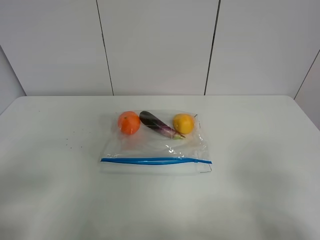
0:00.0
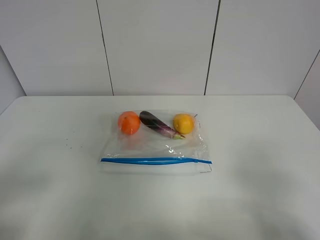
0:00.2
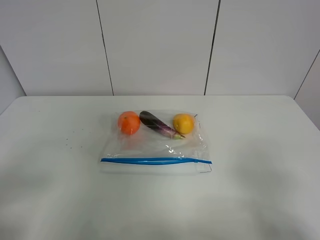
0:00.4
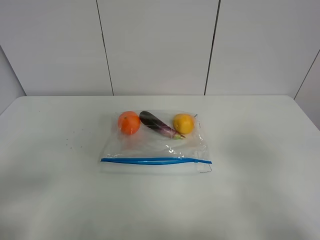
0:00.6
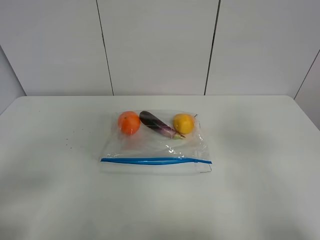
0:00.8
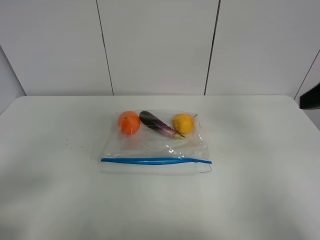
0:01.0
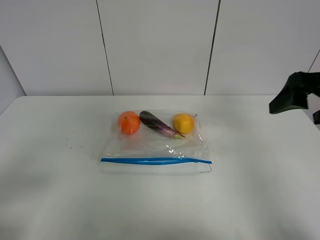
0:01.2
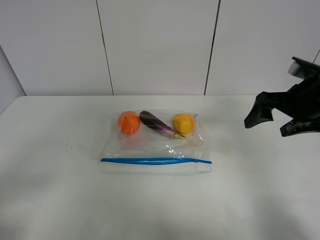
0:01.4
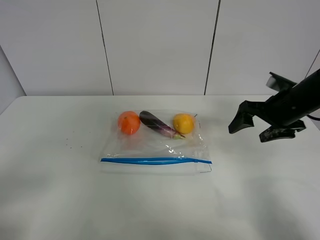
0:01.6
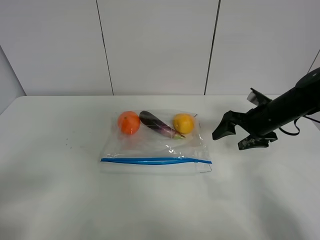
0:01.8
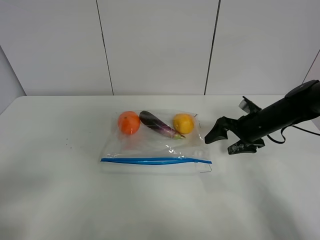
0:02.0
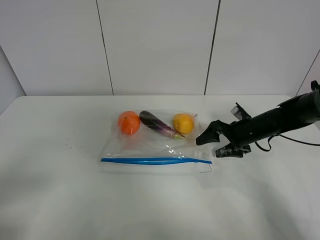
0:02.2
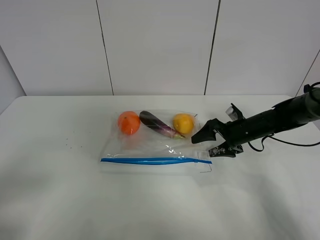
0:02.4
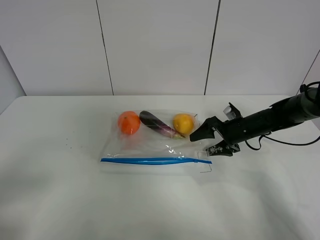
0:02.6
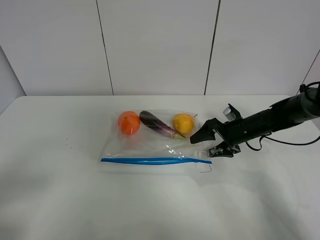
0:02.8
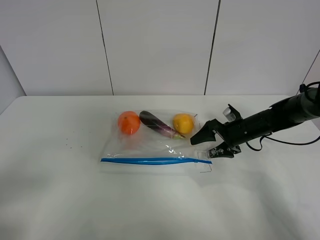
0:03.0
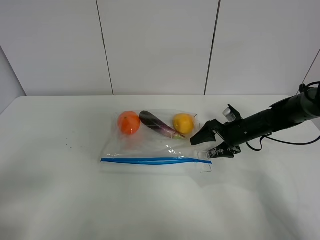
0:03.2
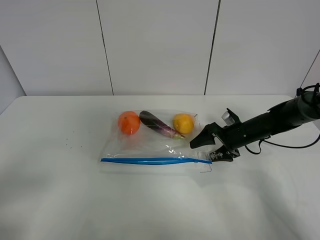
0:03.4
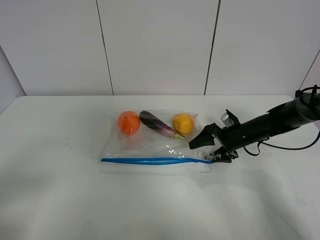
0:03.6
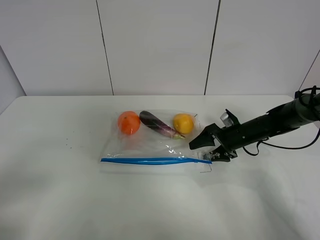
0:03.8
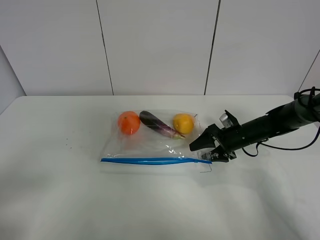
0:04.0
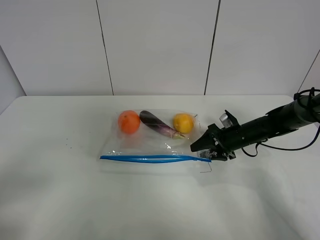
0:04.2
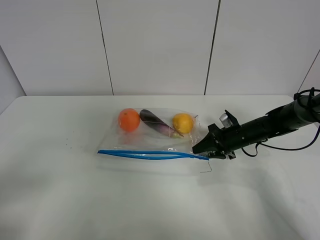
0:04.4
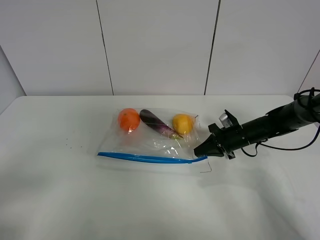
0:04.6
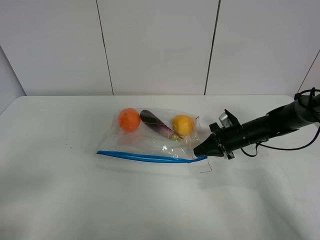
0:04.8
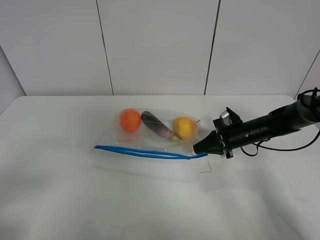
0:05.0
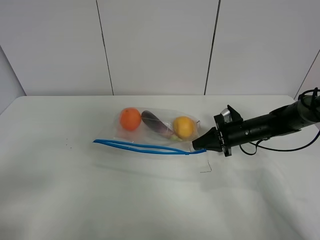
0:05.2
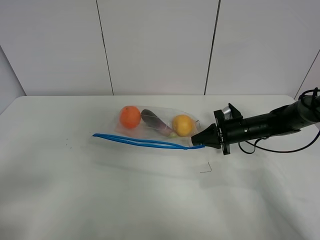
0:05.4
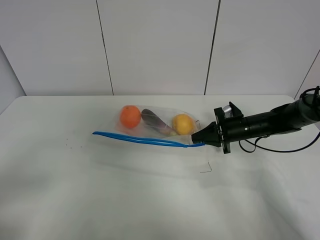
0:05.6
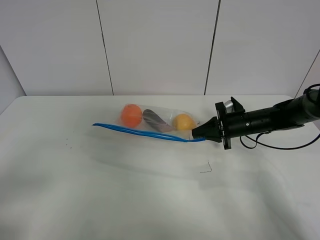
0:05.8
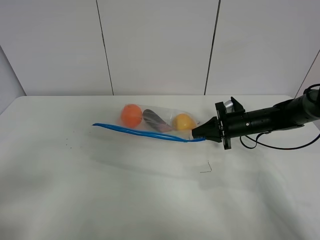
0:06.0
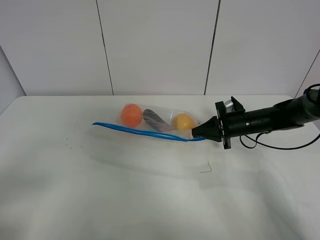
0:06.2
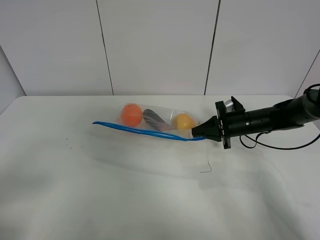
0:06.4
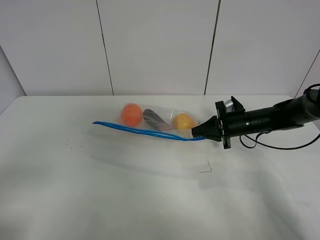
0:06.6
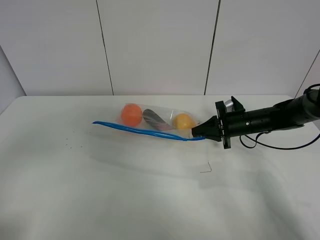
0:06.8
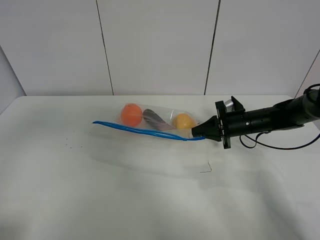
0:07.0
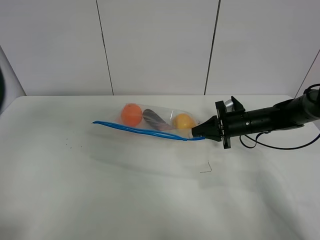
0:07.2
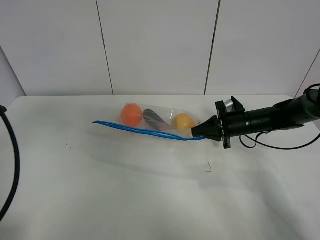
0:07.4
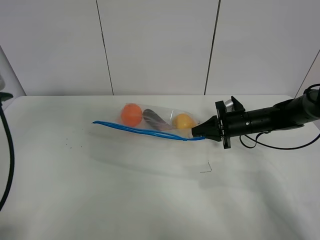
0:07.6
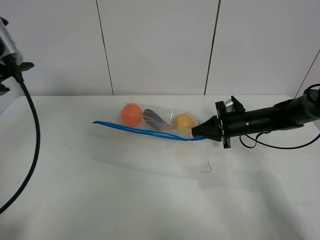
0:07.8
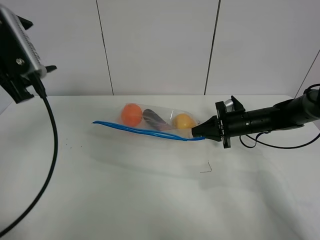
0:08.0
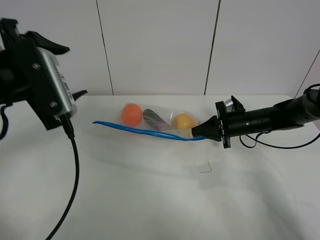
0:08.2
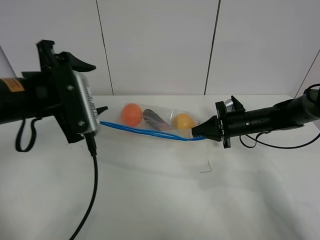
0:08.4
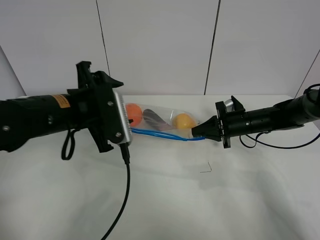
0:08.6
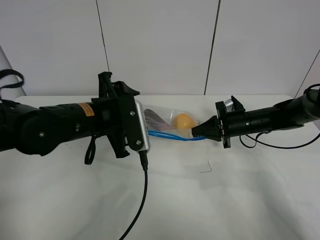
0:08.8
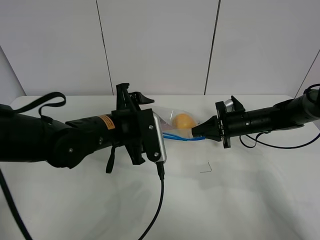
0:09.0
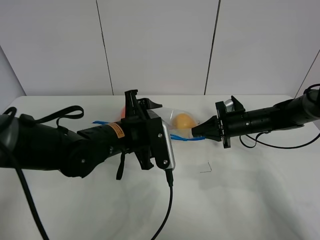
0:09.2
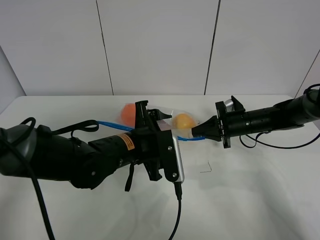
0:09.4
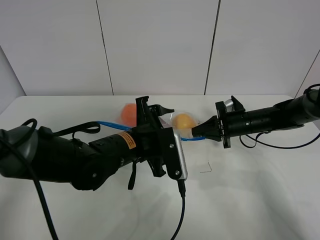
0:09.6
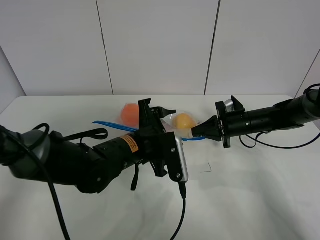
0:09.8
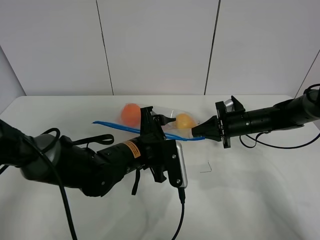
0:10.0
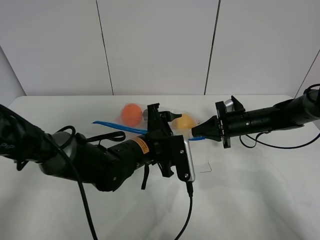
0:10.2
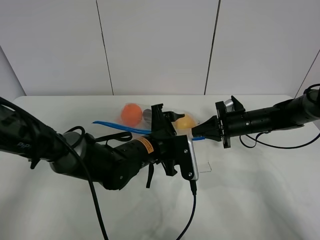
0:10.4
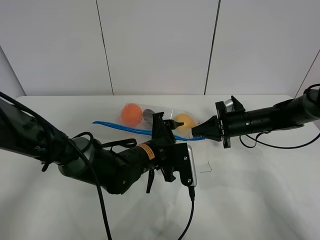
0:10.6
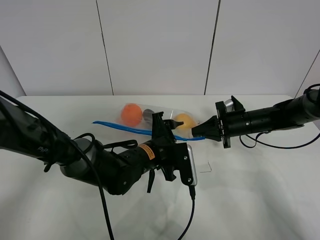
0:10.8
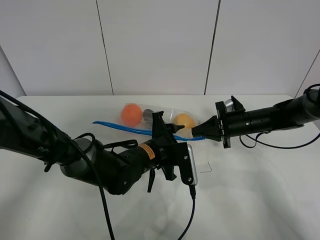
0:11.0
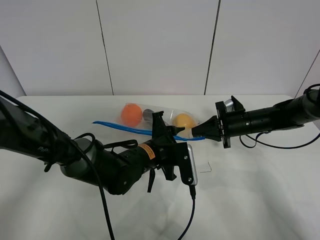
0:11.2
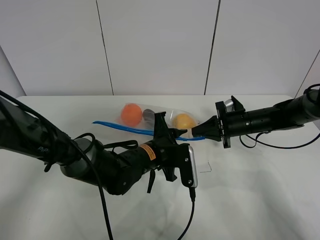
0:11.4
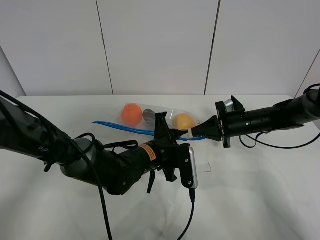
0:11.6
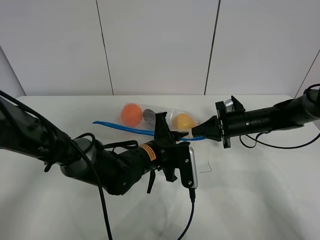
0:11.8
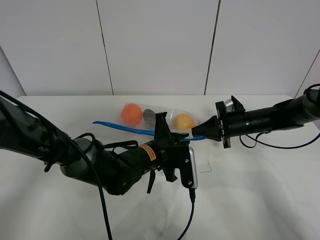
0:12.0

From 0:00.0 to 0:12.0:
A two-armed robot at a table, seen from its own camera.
Step, from 0:00.0 to 0:04.4: Grasp the fruit bag with right gripper.
Step, from 0:04.6 to 0:06.0: Lift the fruit bag with your right gripper.
From 0:00.0 to 0:01.6: The right gripper goes about 30 cm forward.
From 0:01.6 to 0:03.0: The right gripper travels downward and forward by some 15 cm.
From 0:03.0 to 0:04.4: The right gripper closes its fingers.
From 0:04.4 to 0:06.0: The grippers stay close to where they were, moving slightly.
From 0:06.0 to 0:07.6: The left gripper moves forward and upward, about 25 cm.
From 0:07.6 to 0:09.0: The left gripper travels to the right and downward by roughly 25 cm.
From 0:09.0 to 0:10.4: The left gripper moves to the right and downward, about 10 cm.
From 0:10.4 to 0:12.0: The left gripper closes.

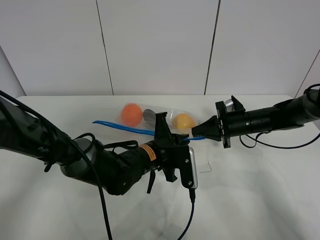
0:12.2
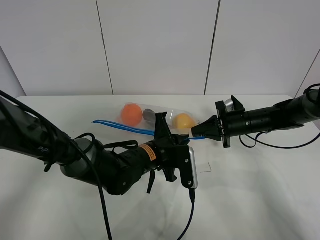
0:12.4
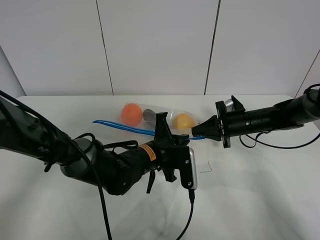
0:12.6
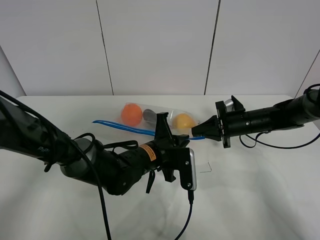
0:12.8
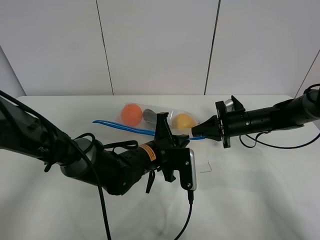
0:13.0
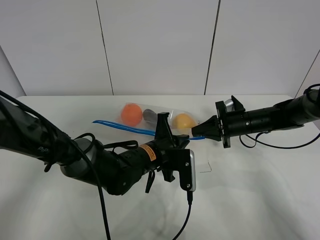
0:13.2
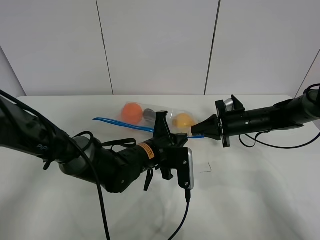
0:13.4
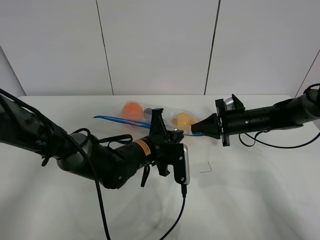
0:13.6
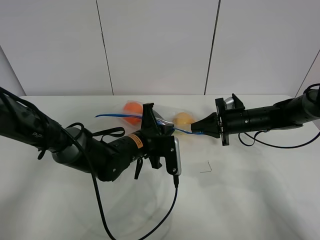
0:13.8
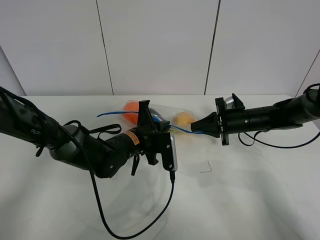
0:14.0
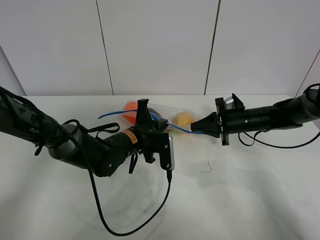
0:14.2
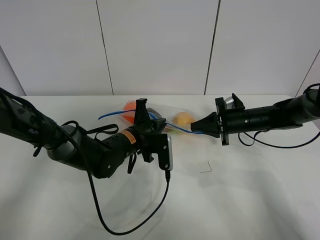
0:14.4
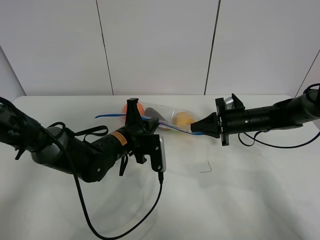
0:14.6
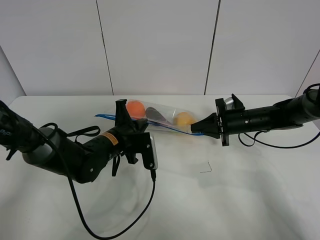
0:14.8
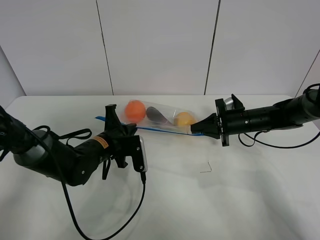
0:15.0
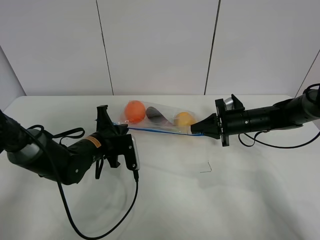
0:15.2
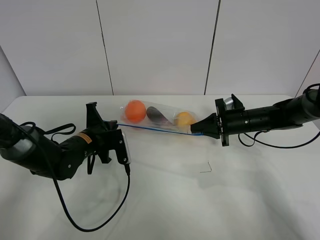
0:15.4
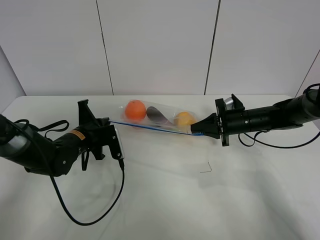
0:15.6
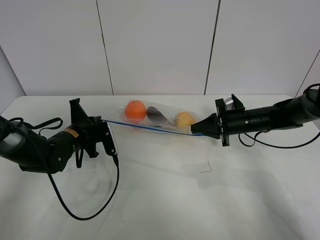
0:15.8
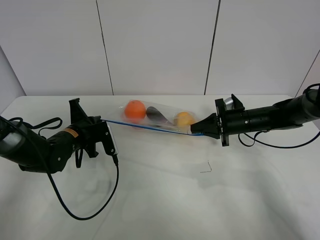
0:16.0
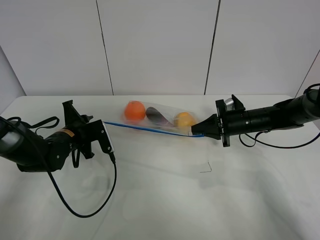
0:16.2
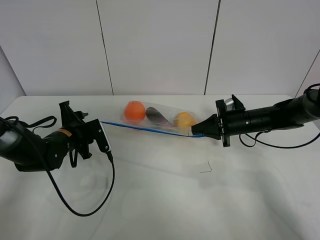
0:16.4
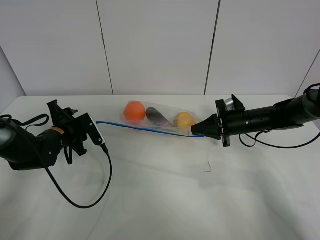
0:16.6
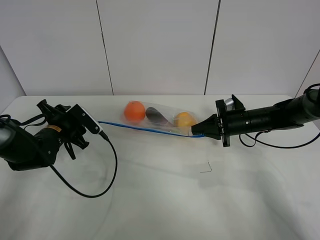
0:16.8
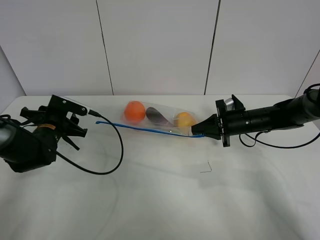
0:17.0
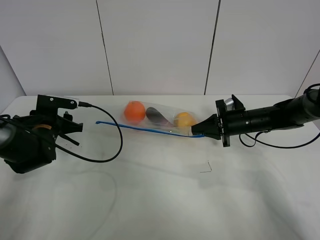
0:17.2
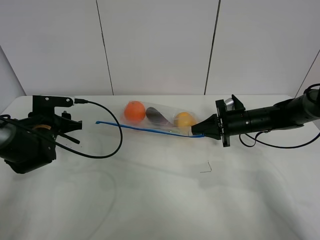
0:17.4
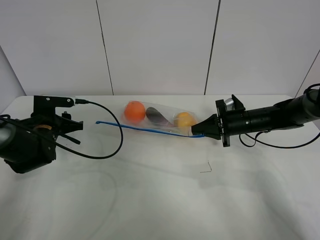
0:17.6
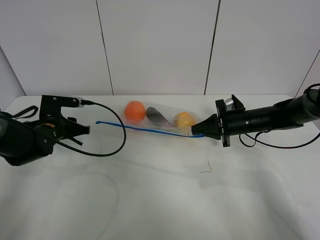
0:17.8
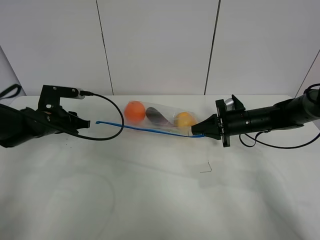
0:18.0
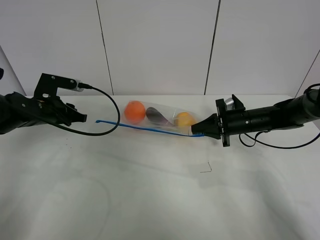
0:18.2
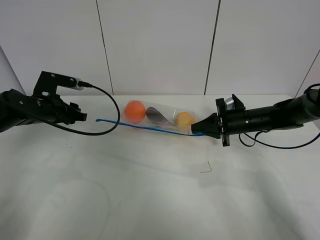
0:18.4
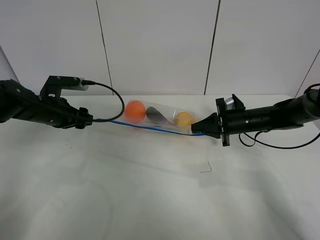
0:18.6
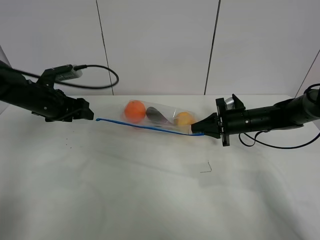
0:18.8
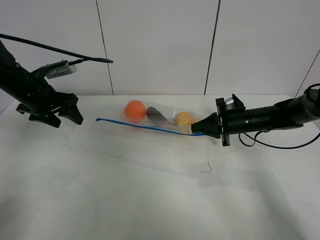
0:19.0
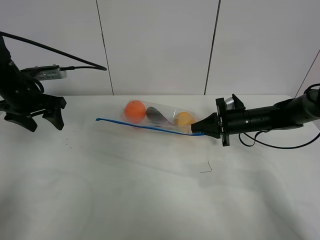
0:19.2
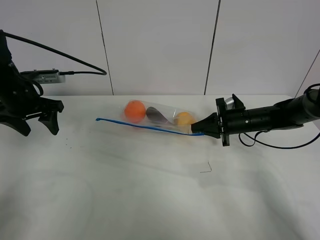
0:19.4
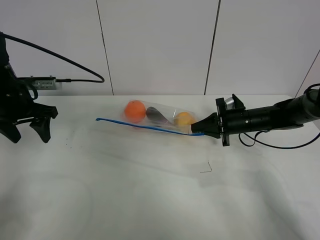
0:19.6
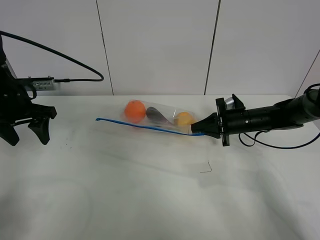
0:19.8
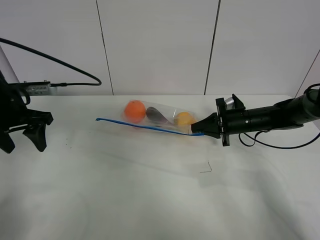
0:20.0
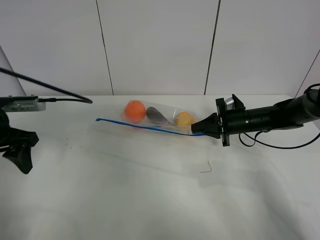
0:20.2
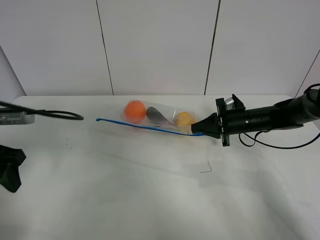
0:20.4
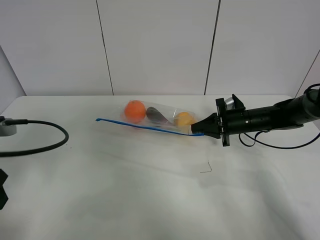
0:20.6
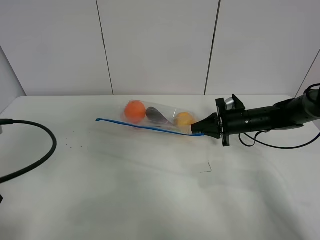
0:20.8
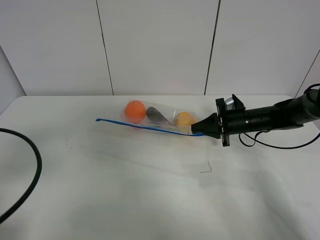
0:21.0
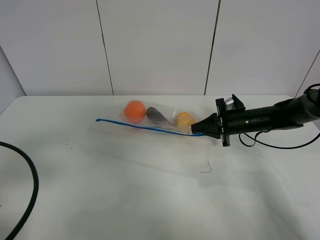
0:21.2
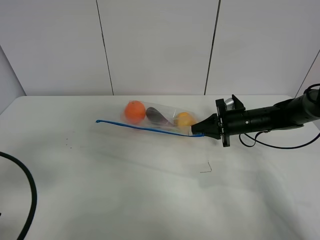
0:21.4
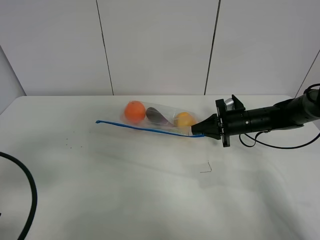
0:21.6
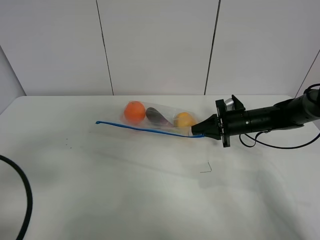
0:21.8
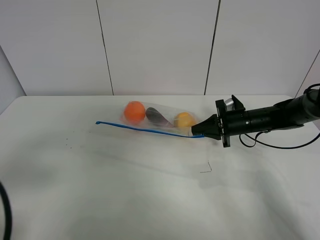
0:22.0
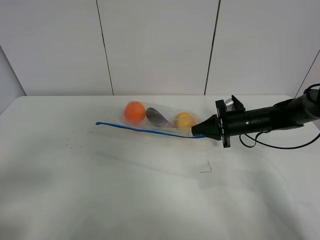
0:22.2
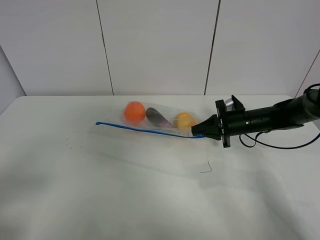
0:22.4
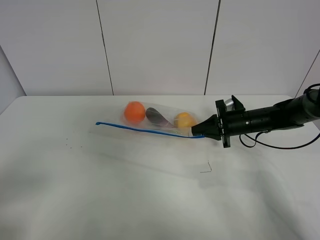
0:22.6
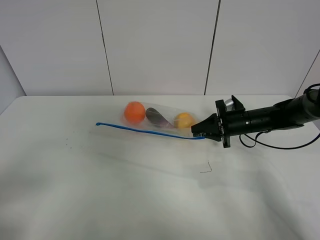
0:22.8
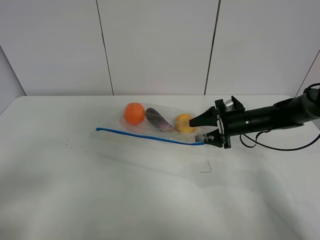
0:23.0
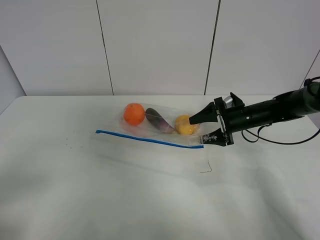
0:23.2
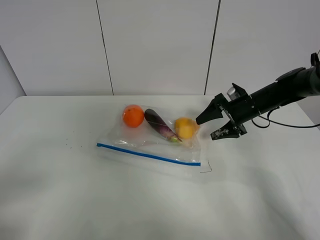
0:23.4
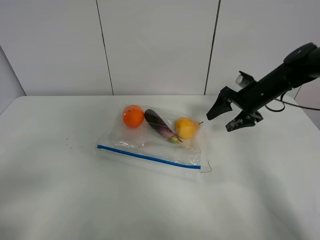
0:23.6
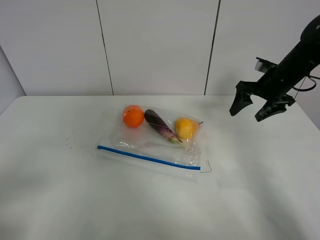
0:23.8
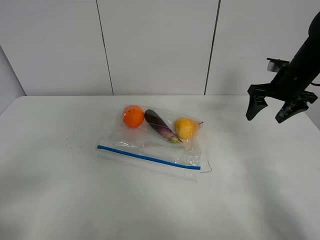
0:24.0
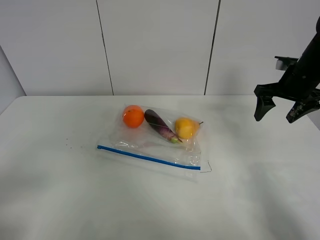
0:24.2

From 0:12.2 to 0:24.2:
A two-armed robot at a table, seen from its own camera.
Step, from 0:12.2 to 0:16.4: Pull the fruit bag with left gripper.
From 0:12.2 to 0:13.8: The left gripper ends up approximately 5 cm from where it was.
From 0:13.8 to 0:15.2: The left gripper goes roughly 10 cm to the left.
From 0:15.2 to 0:16.6: The left gripper moves to the left, some 10 cm, and opens up.
From 0:16.6 to 0:18.2: The left gripper moves upward, roughly 5 cm.
From 0:18.2 to 0:19.8: The left gripper moves upward, roughly 5 cm, and opens its fingers.
From 0:19.8 to 0:21.2: The left gripper goes approximately 25 cm backward.
From 0:21.2 to 0:22.6: The left gripper heads backward, covering some 10 cm.
From 0:22.6 to 0:24.2: The right gripper is displaced upward and to the right by about 15 cm, and opens its fingers.
